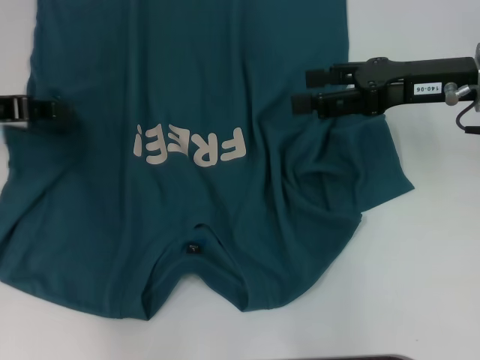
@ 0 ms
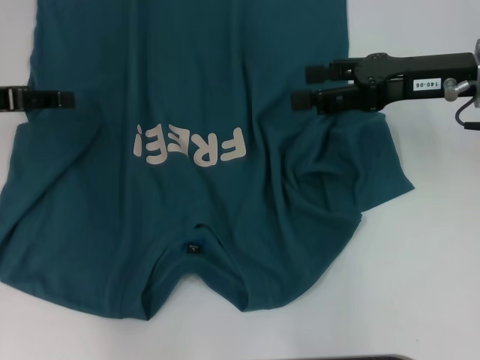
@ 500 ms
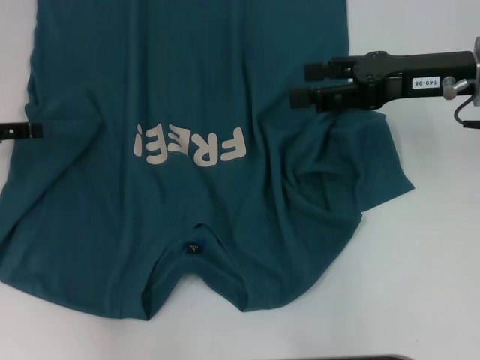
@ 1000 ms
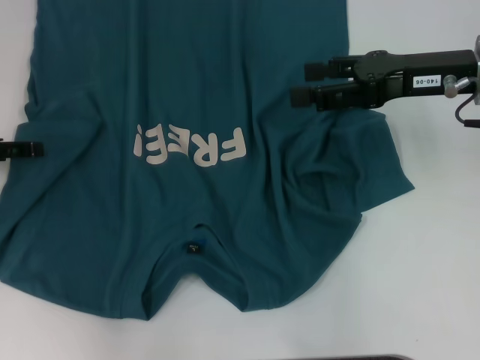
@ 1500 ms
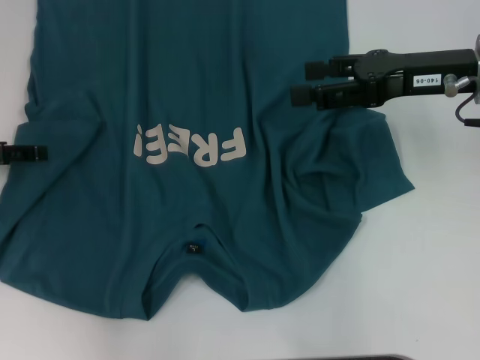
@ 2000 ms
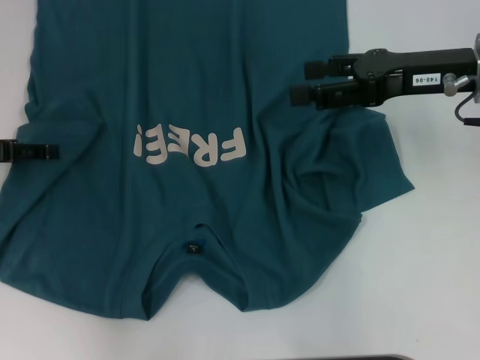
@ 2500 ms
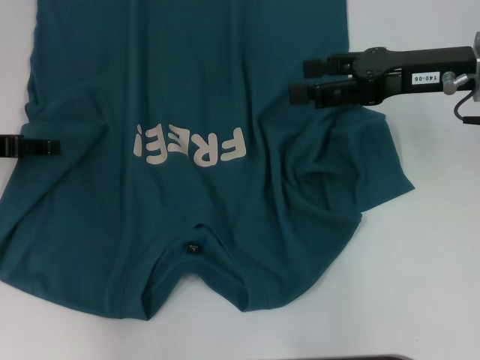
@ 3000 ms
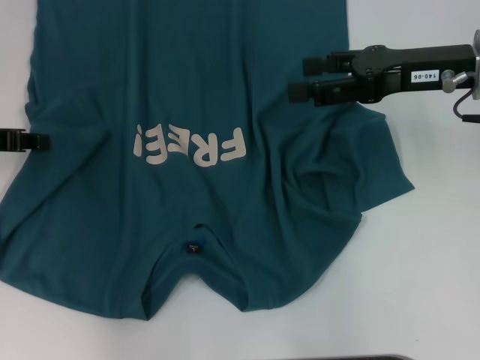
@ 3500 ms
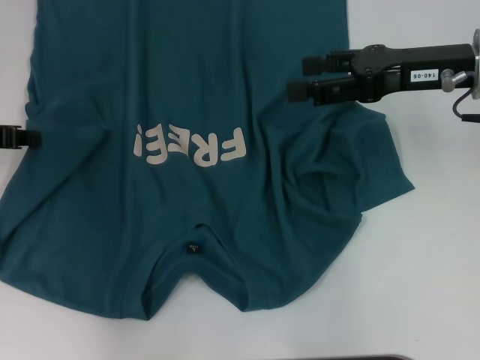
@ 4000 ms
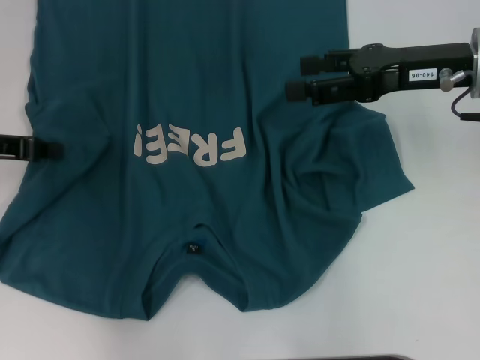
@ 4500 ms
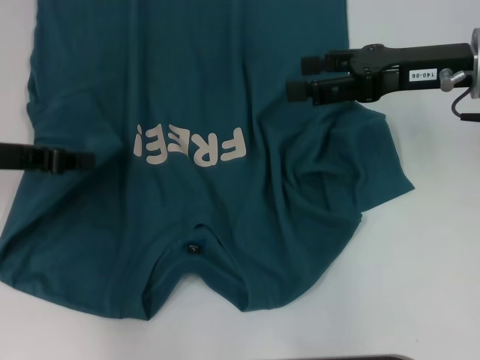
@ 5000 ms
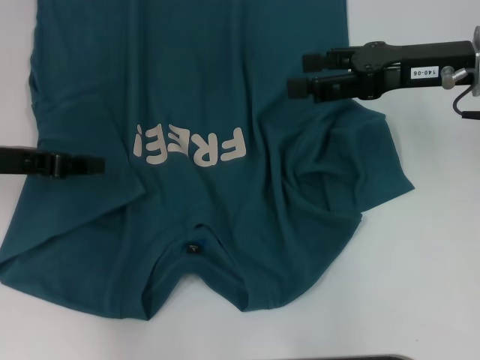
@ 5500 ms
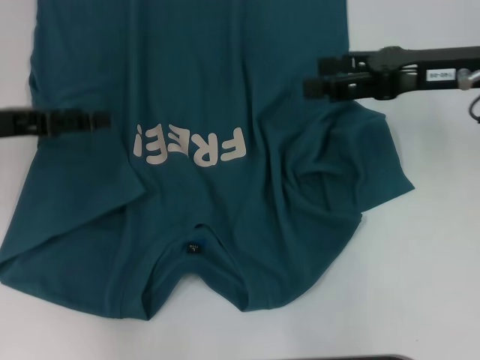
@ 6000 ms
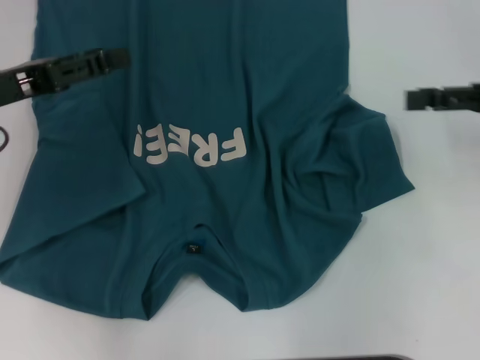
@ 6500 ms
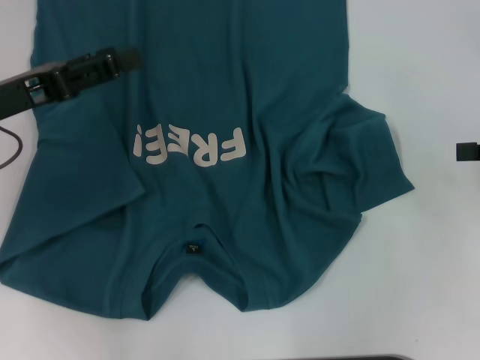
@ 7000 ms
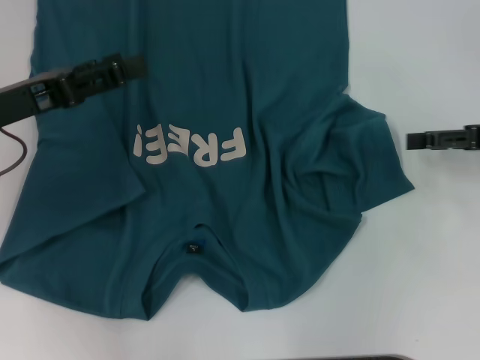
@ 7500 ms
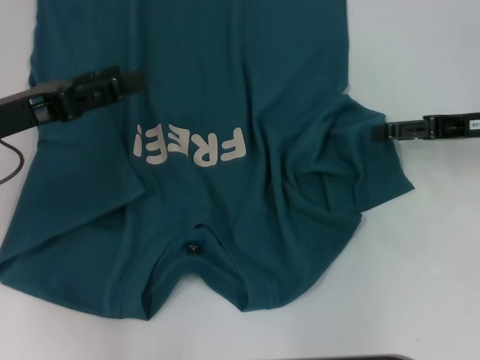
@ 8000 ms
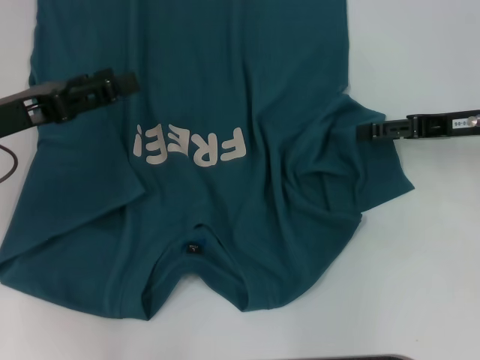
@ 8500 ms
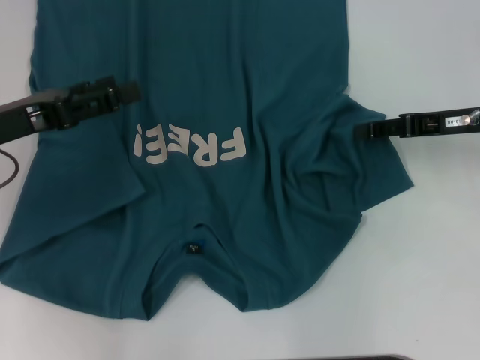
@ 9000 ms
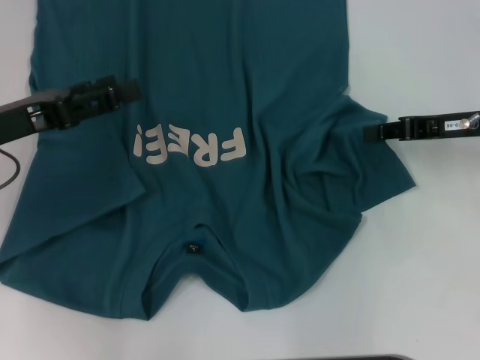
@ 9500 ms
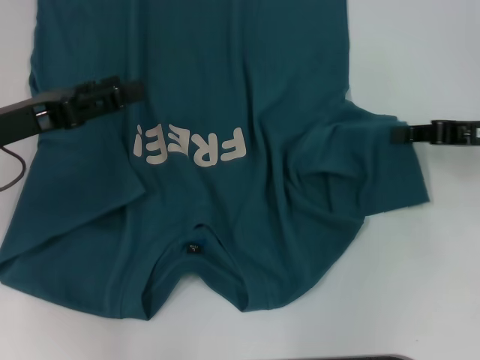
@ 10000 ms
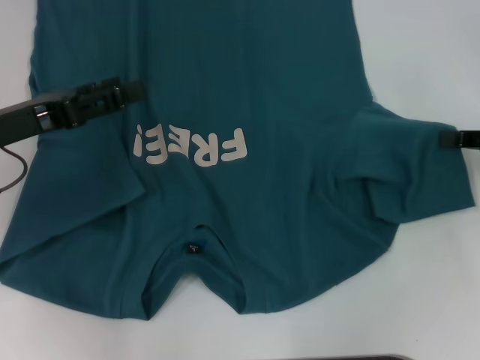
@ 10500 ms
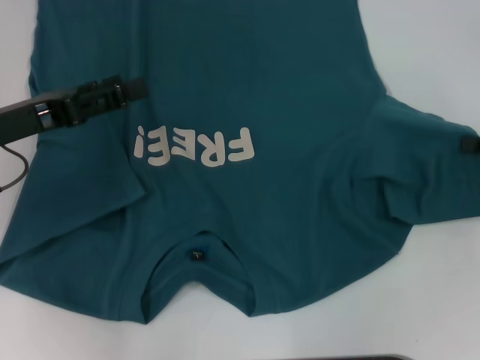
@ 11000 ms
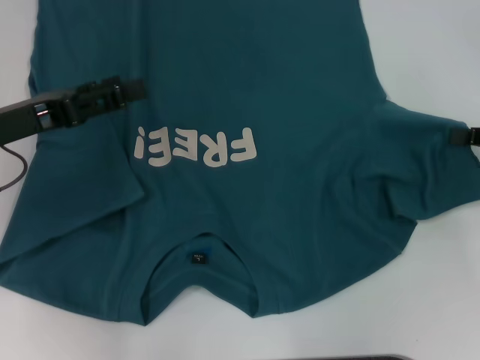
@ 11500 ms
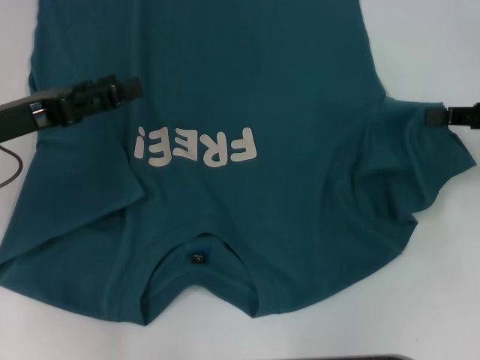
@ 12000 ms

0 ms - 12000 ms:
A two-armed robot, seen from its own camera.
Step, 0 ms - 5000 ms: Fold the bottom left sleeve with your left hand.
0 ms - 2000 ms: The left gripper moves some 5 cm, and opens.
2000 ms - 4000 ms: The left gripper closes its fingers.
4000 ms - 6000 ms: The left gripper opens.
6000 ms - 8000 ms: The right gripper heads to the right and downward, covering some 10 cm.
8000 ms - 10000 ms: The right gripper closes up.

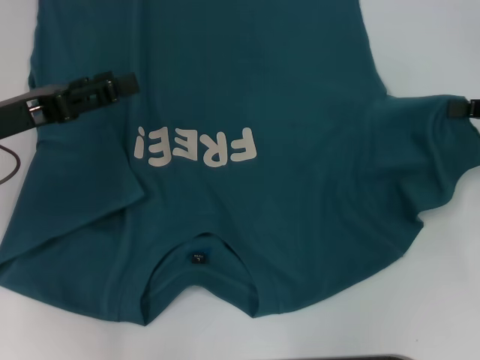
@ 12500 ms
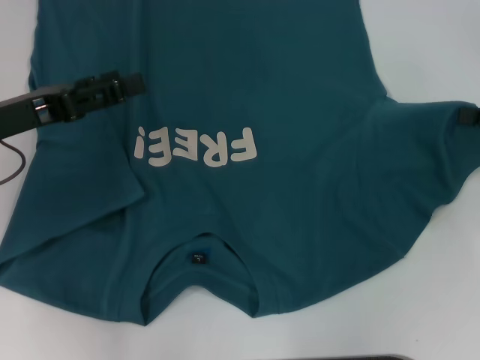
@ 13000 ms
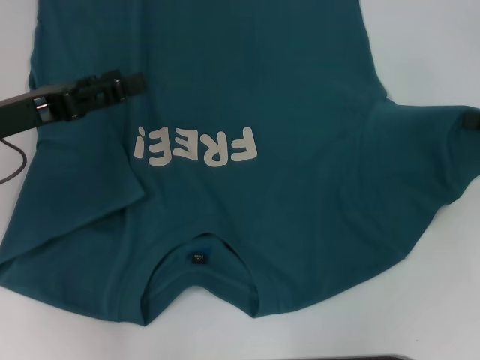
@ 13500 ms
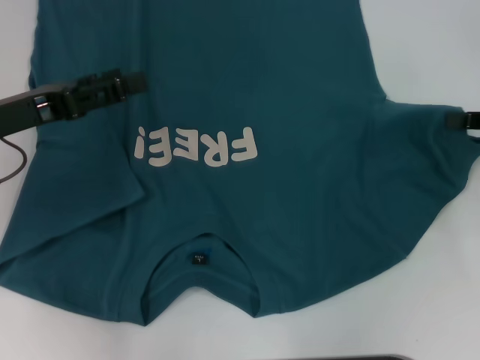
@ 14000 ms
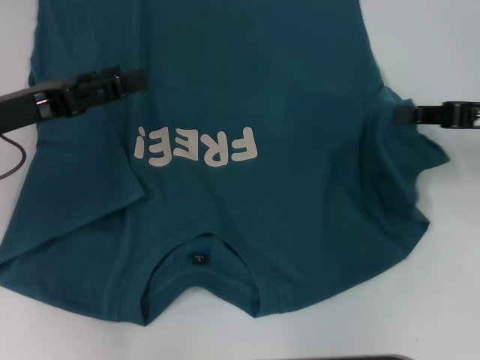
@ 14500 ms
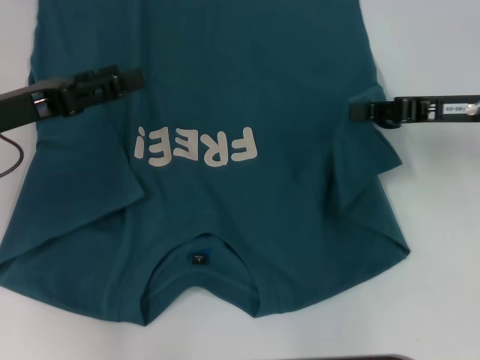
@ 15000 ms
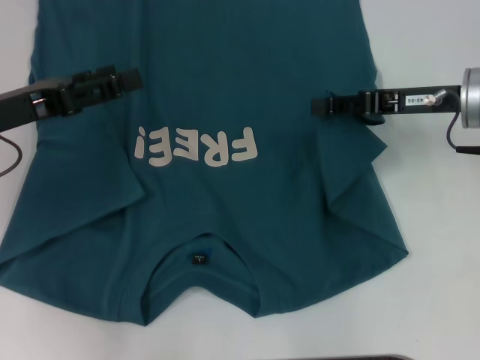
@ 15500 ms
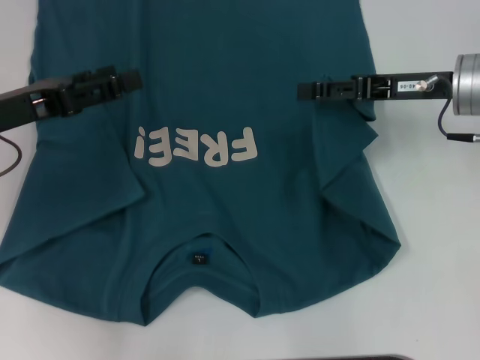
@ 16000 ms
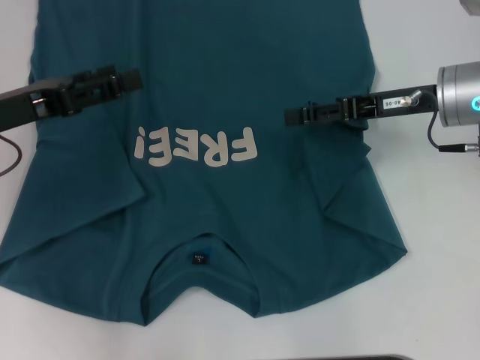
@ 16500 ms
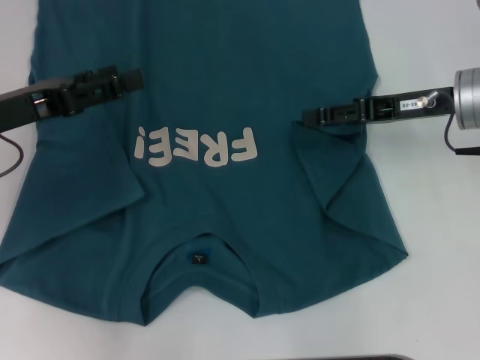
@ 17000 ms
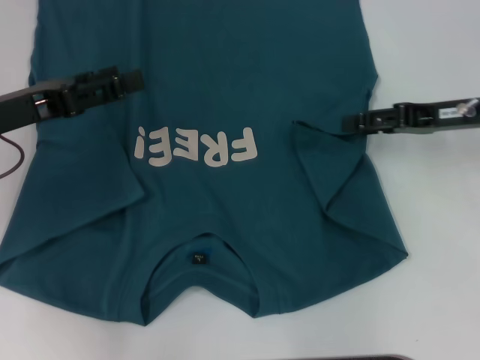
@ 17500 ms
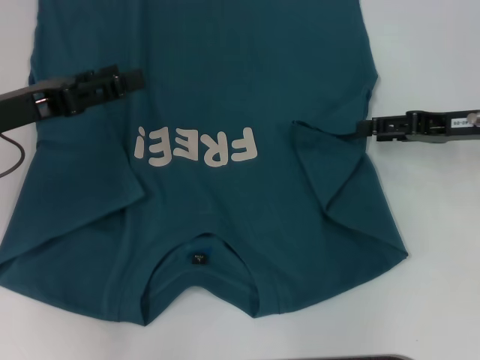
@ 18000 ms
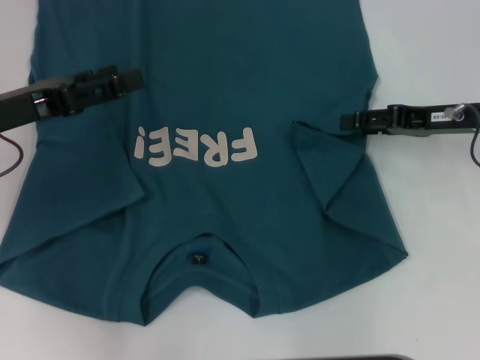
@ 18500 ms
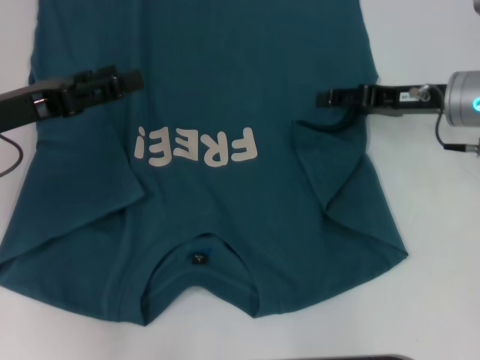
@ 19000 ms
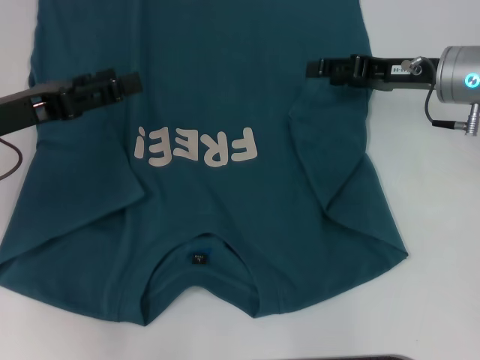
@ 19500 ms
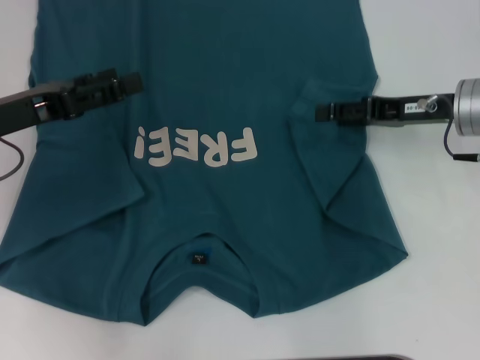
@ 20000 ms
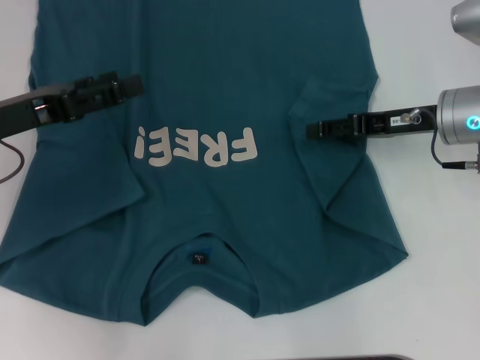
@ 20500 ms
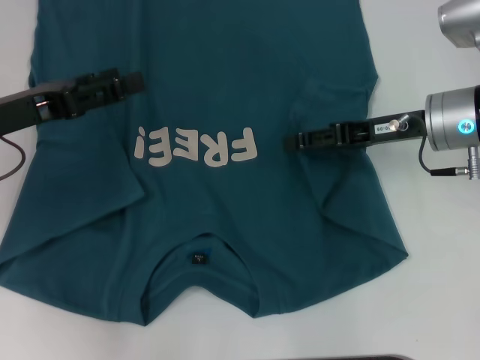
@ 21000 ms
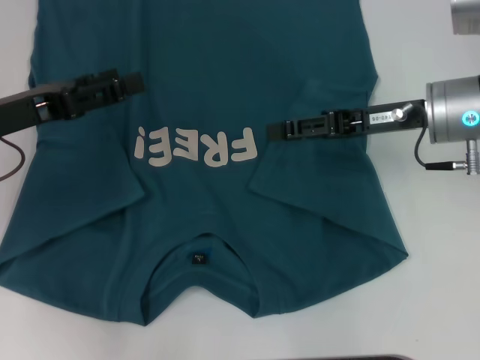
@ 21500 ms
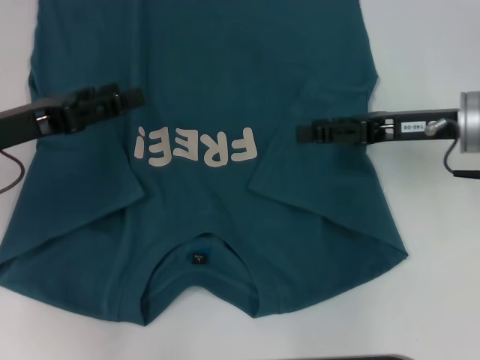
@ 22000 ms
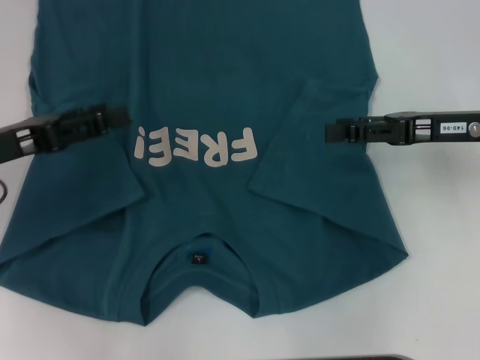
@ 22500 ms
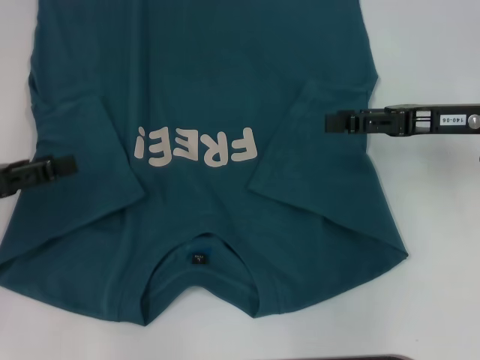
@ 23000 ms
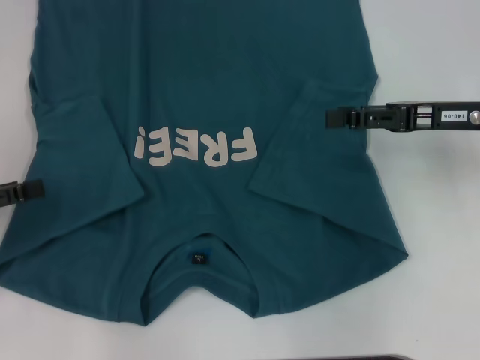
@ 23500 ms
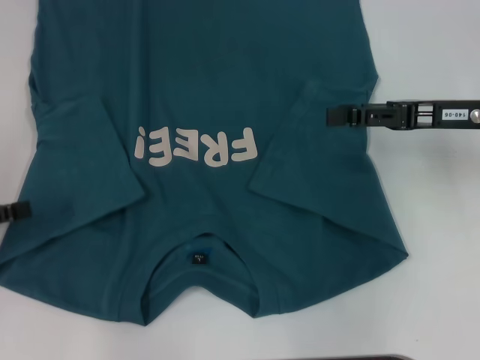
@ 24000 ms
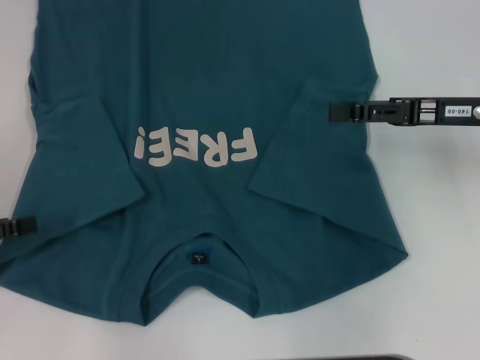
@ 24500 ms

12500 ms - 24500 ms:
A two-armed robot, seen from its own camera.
Step, 12500 ms - 21500 ms: Fold the bottom right sleeve to the right.
12500 ms - 14500 ms: The right gripper shifts by roughly 5 cm.
14500 ms - 16500 ms: The right gripper travels to the left by about 10 cm, and opens.
16500 ms - 18500 ms: The right gripper is displaced to the right by approximately 5 cm.
18500 ms - 20500 ms: The grippers make only small movements.
20500 ms - 22500 ms: The right gripper changes place by roughly 5 cm.
22500 ms - 24500 ms: The left gripper heads to the left, covering roughly 10 cm.

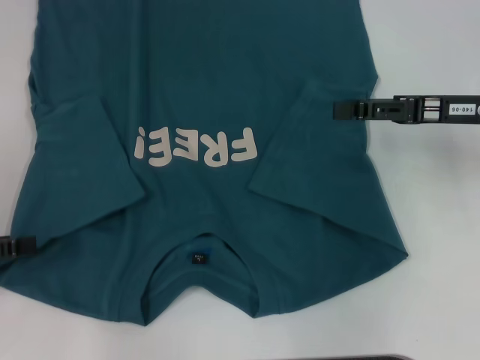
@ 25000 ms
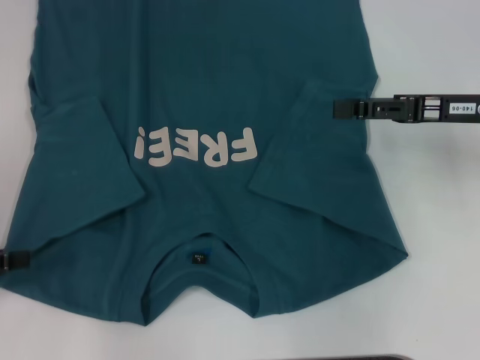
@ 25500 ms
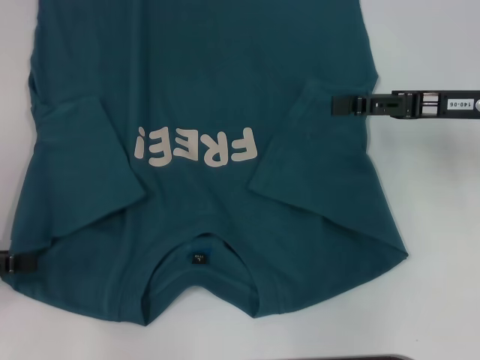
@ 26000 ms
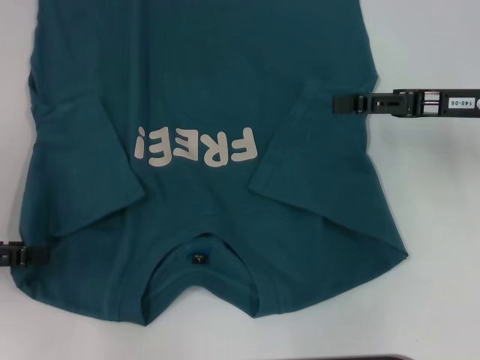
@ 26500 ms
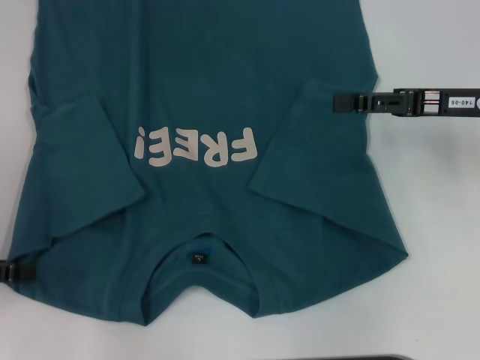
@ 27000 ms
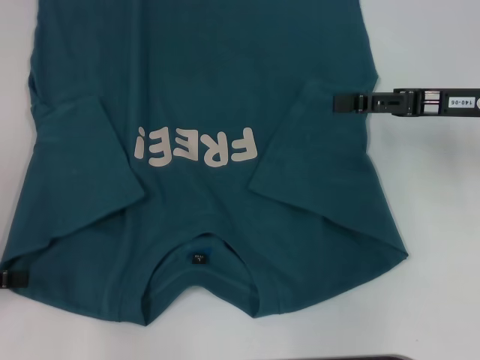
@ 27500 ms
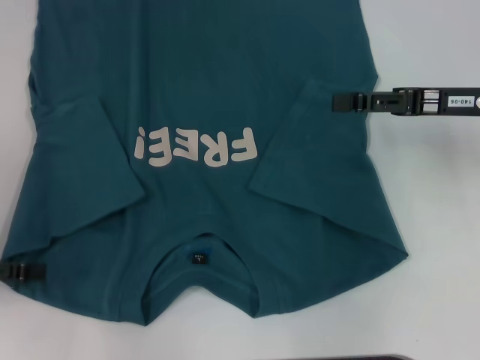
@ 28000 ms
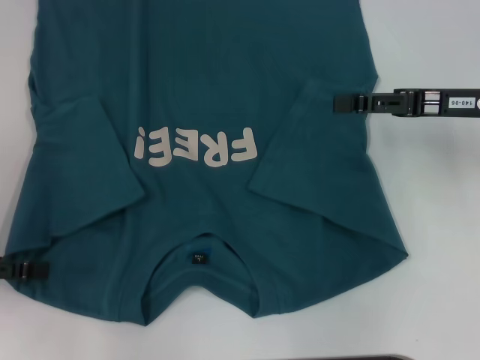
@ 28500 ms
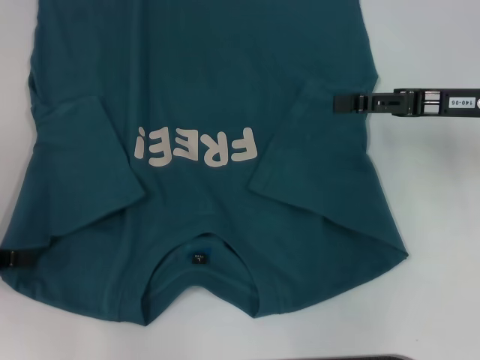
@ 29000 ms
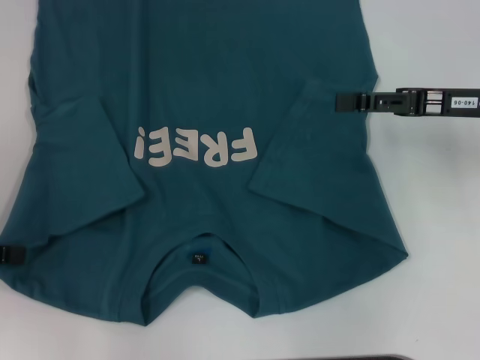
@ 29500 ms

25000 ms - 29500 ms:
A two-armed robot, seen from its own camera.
Step, 25000 ms - 29500 ms: Grab the bottom left corner with your left hand.
25000 ms - 27000 ms: The grippers move only a little.
27000 ms - 29500 ms: The left gripper closes.
